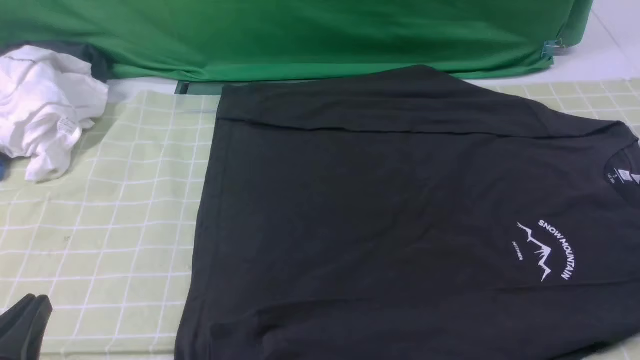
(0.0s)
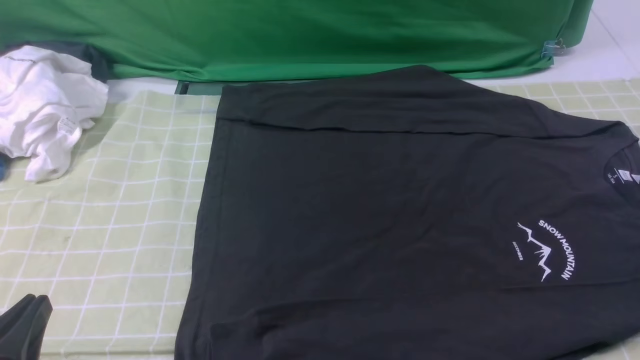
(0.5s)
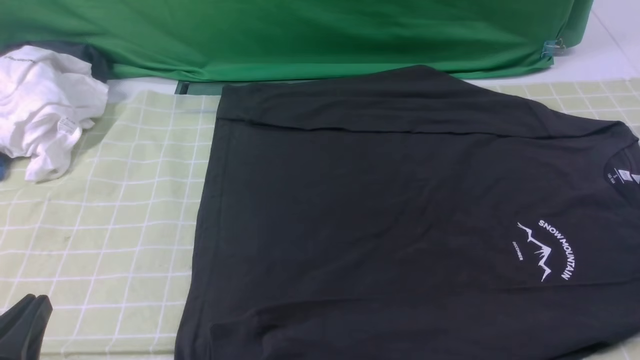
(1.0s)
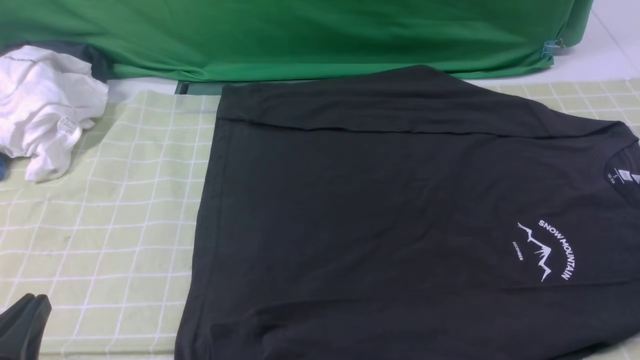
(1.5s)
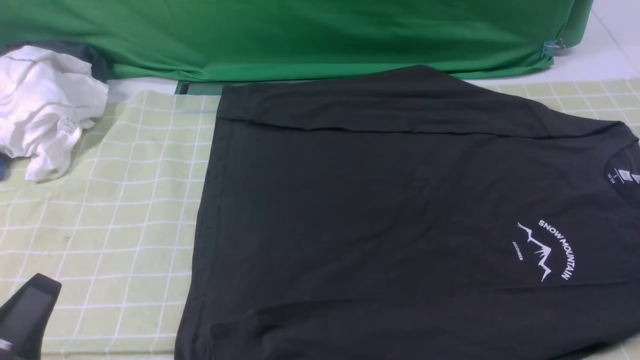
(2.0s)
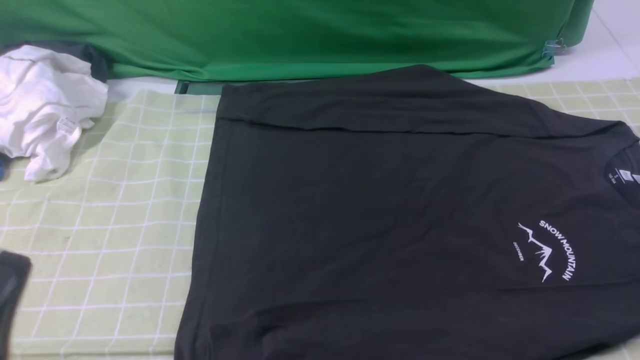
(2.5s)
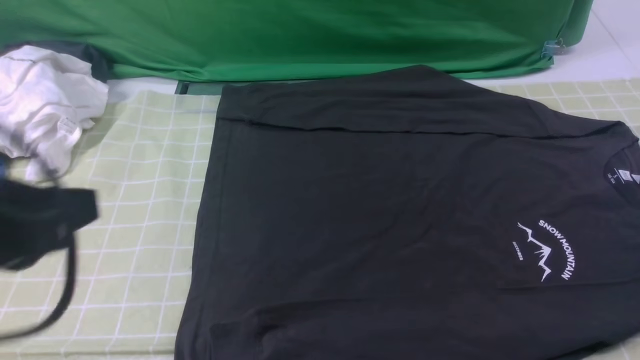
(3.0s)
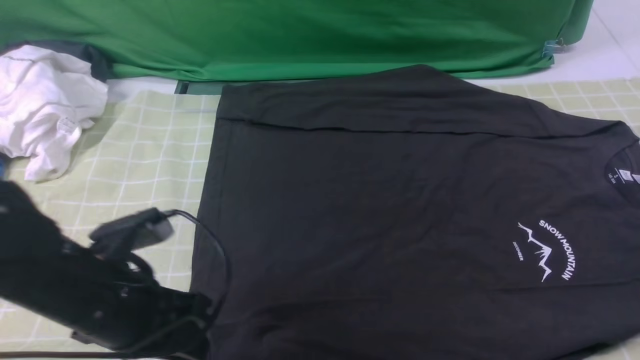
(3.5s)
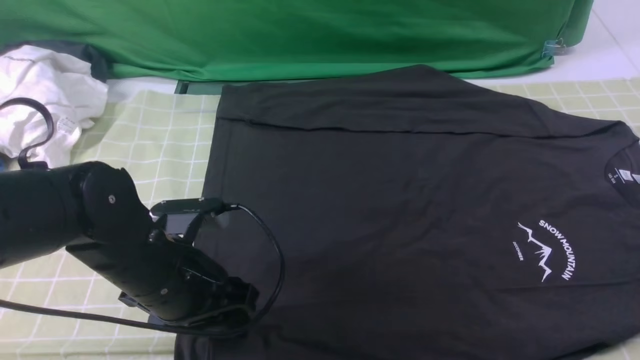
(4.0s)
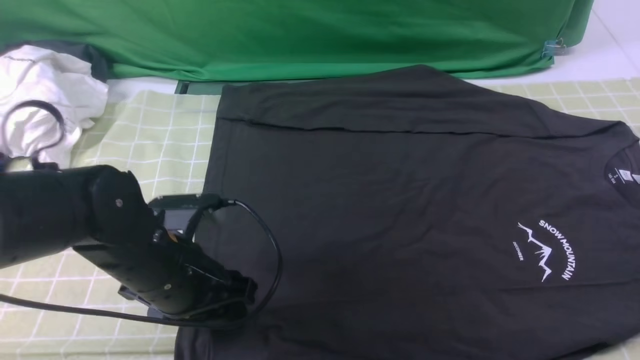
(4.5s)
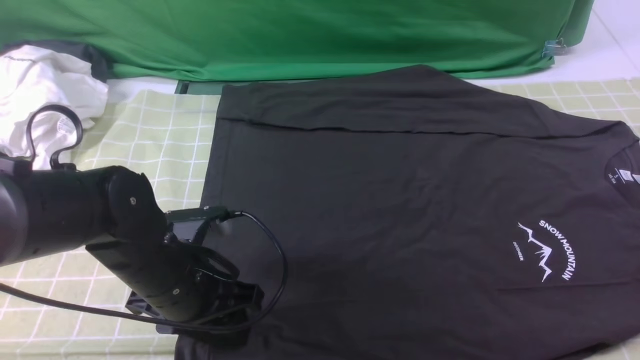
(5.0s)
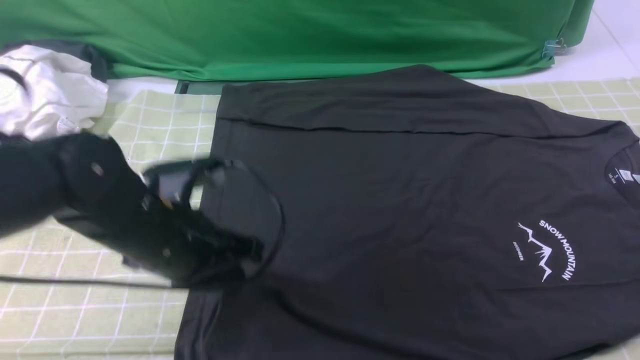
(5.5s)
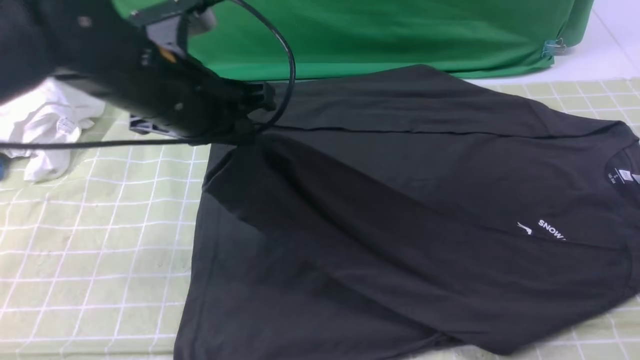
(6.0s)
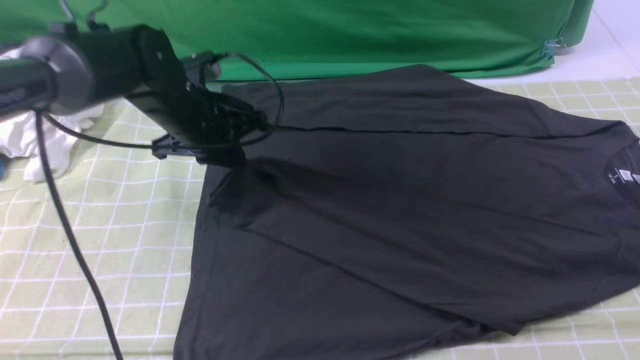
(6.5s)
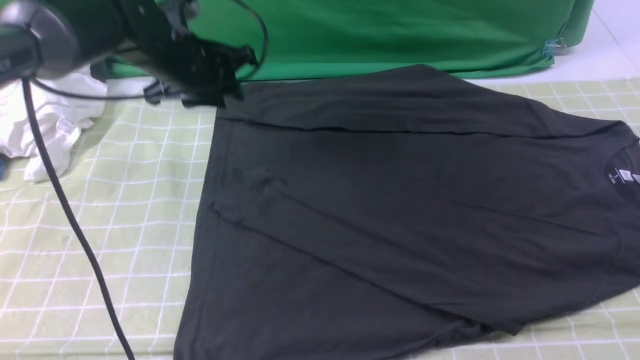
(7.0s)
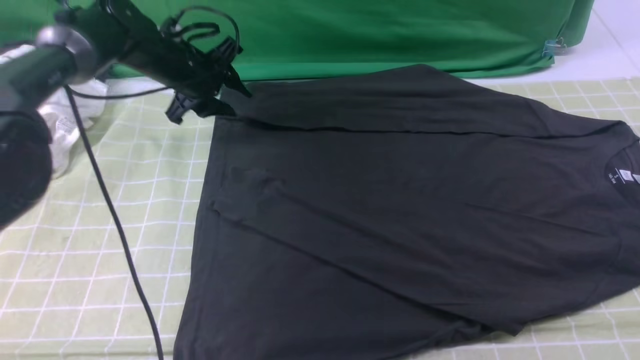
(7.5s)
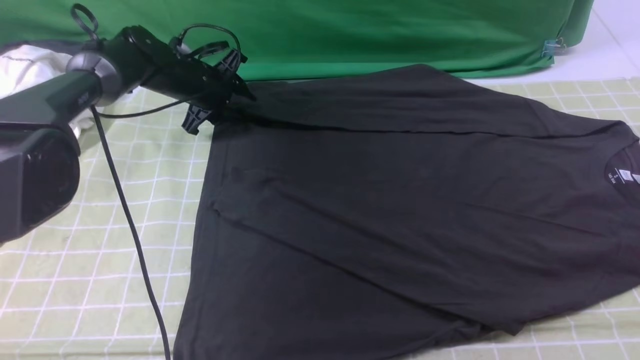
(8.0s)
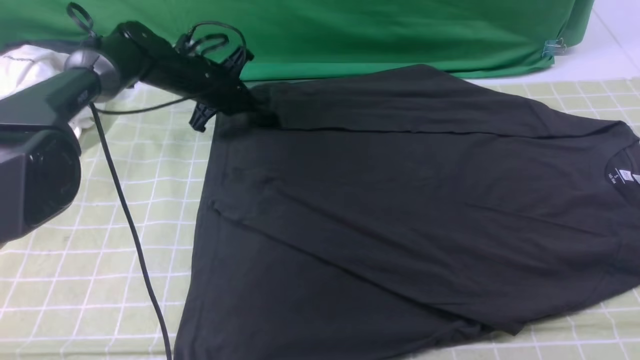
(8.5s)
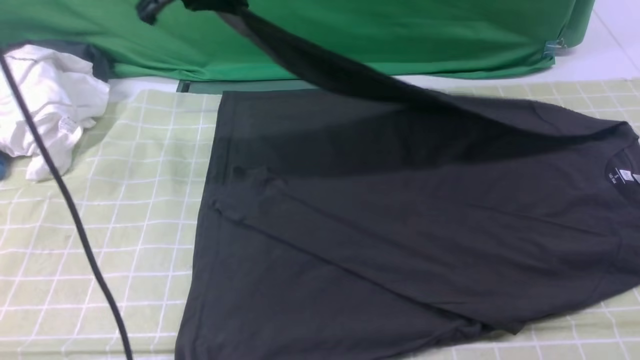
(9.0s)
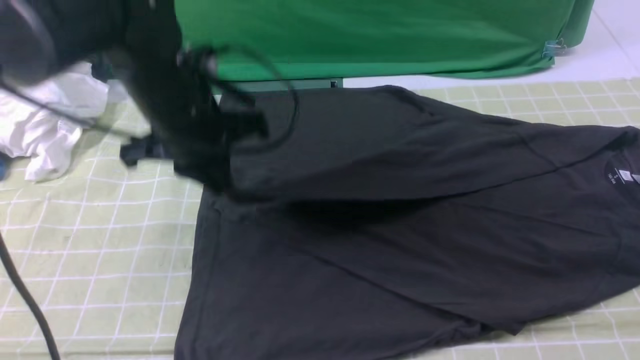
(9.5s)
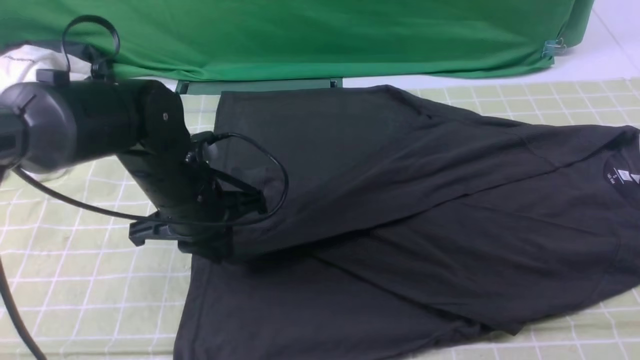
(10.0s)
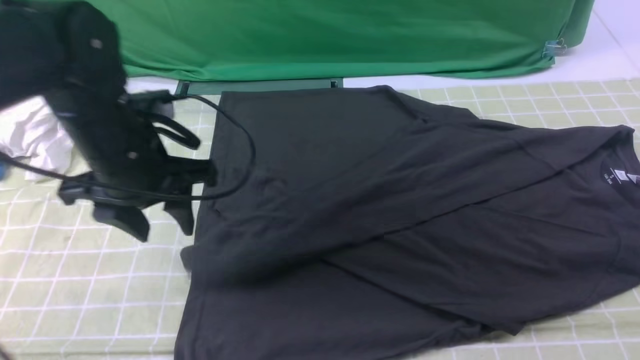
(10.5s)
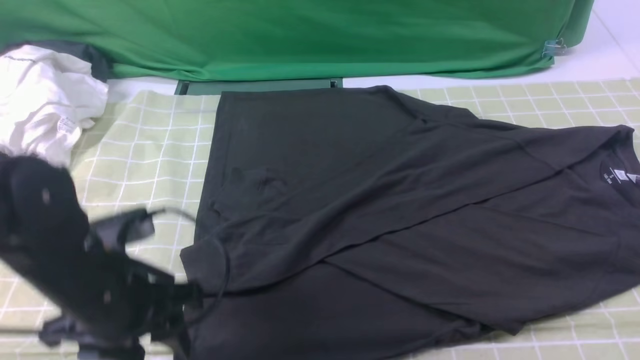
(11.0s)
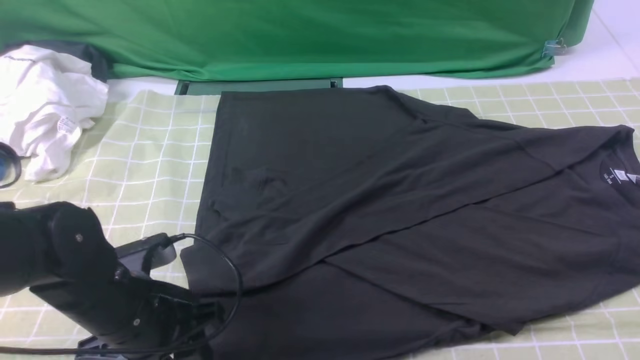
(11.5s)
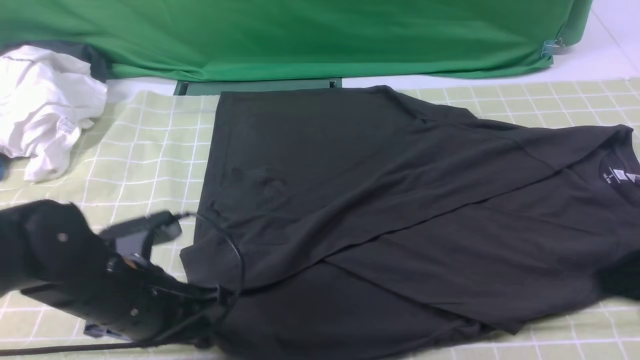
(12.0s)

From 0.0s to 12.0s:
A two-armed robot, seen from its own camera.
Step, from 0.0s to 5.0s: use the left arm to clamp the cuff closest to it.
Step, from 5.5s to 6.5s: use the left arm to drag and place the cuff at the centered position on the left edge of the fabric.
Step, from 7.0s to 8.0s: use the left arm to clamp the cuff farthest from it.
Step, from 8.5s to 10.5s: use the left arm to drag and drop the cuff onto the cuff closest to the left arm.
From 2.0s to 4.0s: The right gripper shifts approximately 15 cm upward and forward, and closes up, while the left gripper heads forward and to the right, covering about 20 cm, and opens.
From 4.0s to 6.0s: The left gripper heads upward and forward, covering roughly 15 cm, and closes.
From 6.0s to 8.0s: The left gripper shifts about 25 cm forward and downward, and opens up.
From 8.0s to 10.0s: The left gripper shifts about 25 cm backward, and closes its fingers.
From 10.0s to 12.0s: The left gripper goes about 10 cm backward, and opens and closes again. Meanwhile the right gripper shifts by some 5 cm.

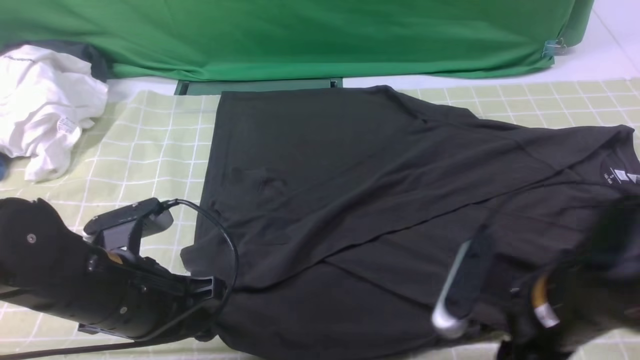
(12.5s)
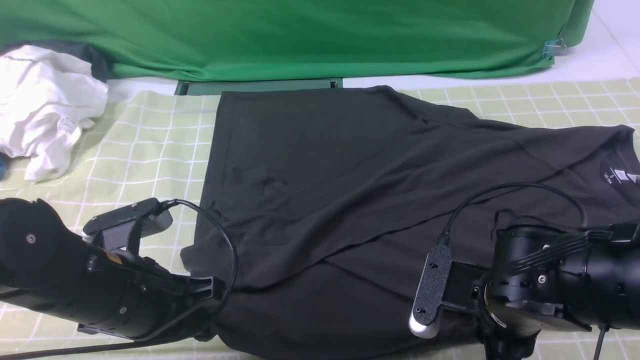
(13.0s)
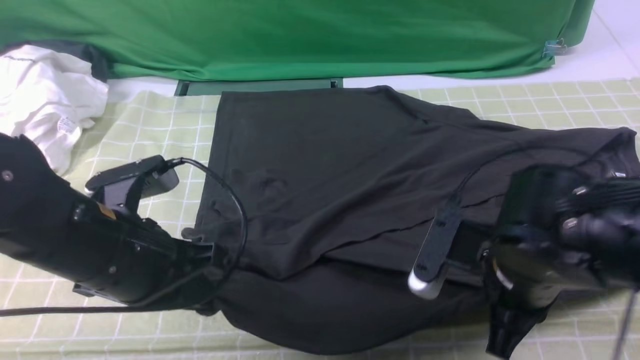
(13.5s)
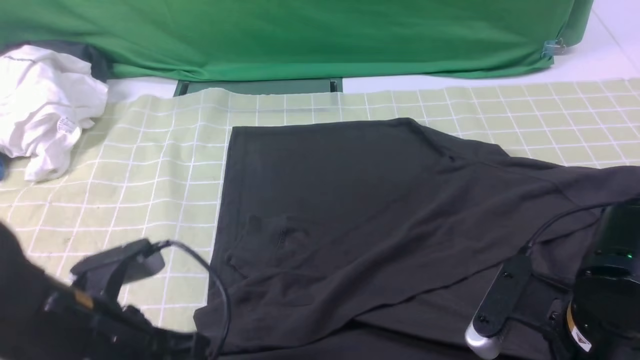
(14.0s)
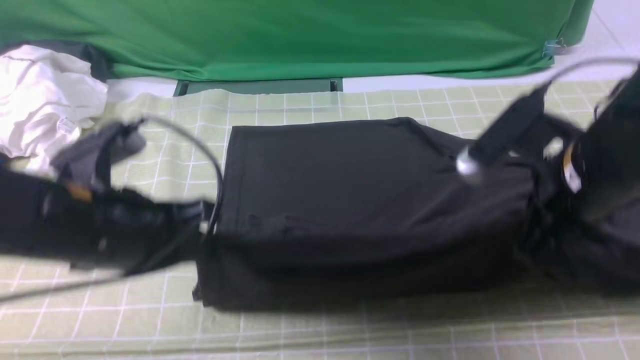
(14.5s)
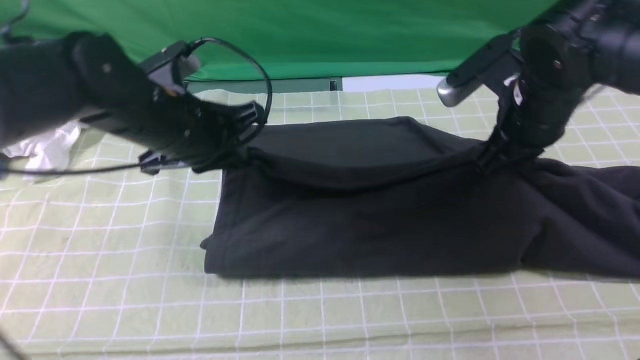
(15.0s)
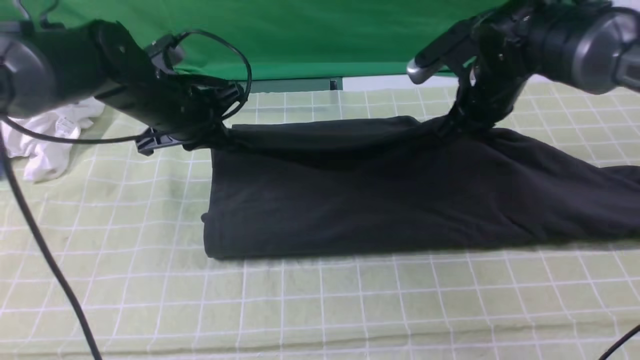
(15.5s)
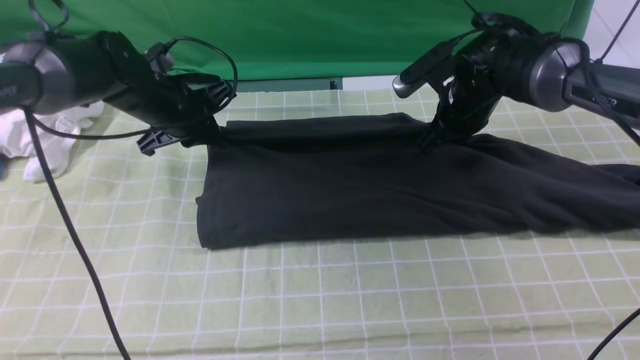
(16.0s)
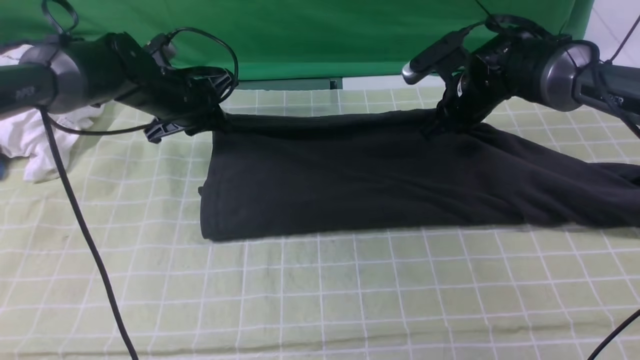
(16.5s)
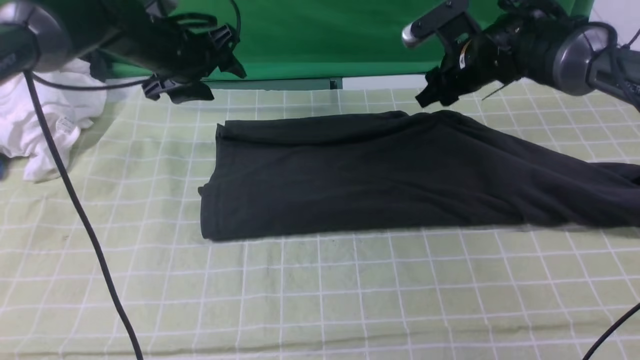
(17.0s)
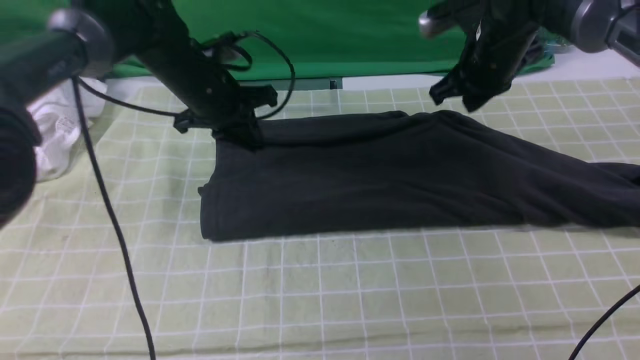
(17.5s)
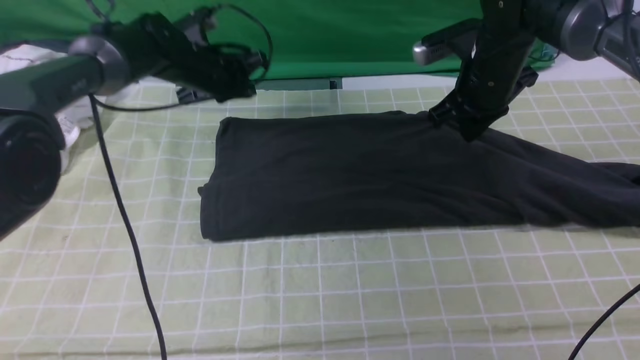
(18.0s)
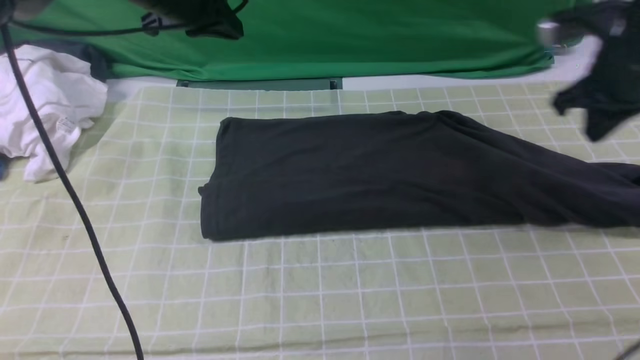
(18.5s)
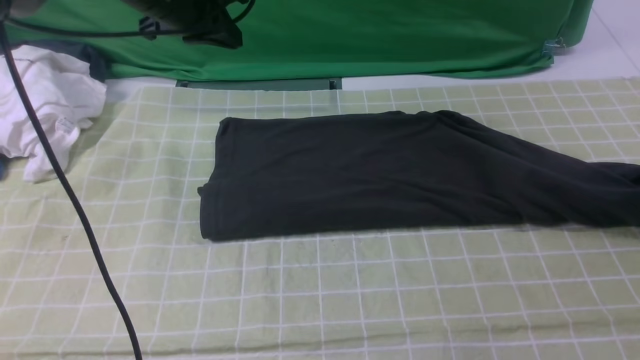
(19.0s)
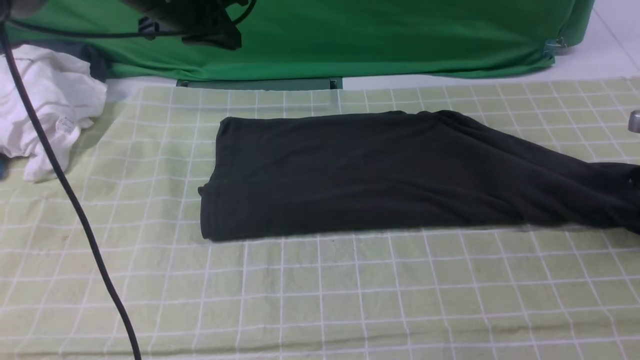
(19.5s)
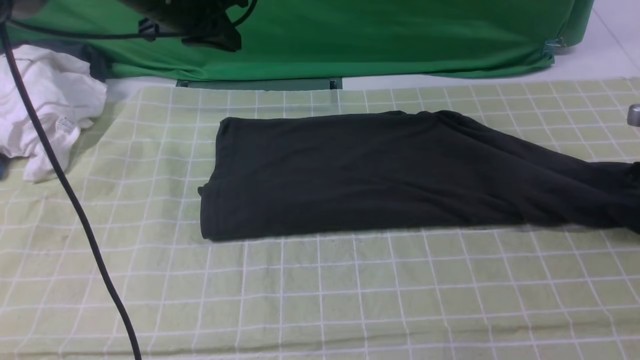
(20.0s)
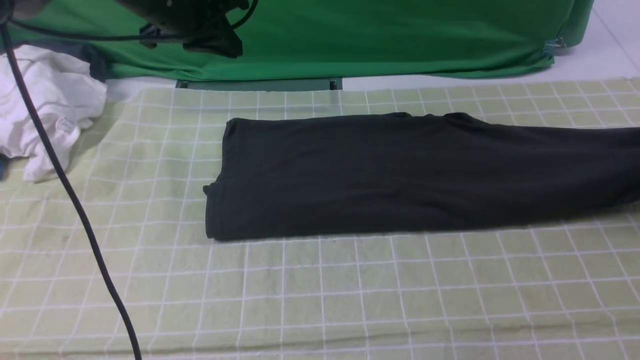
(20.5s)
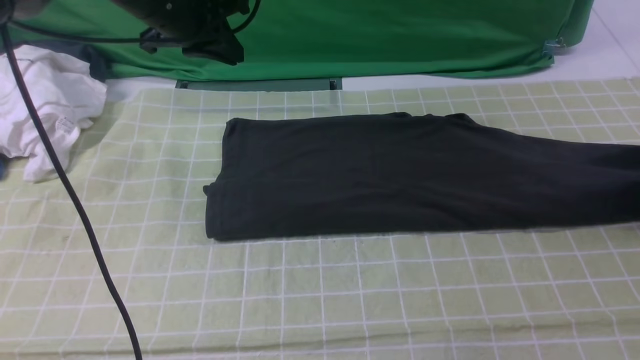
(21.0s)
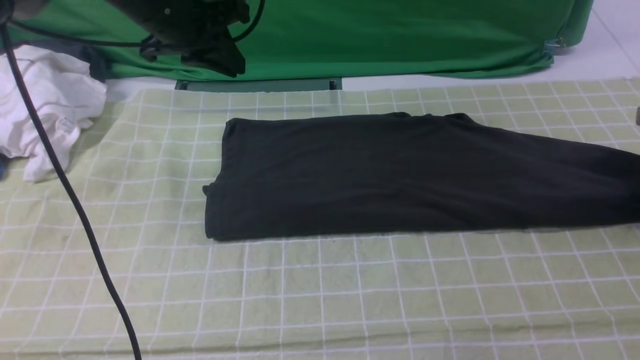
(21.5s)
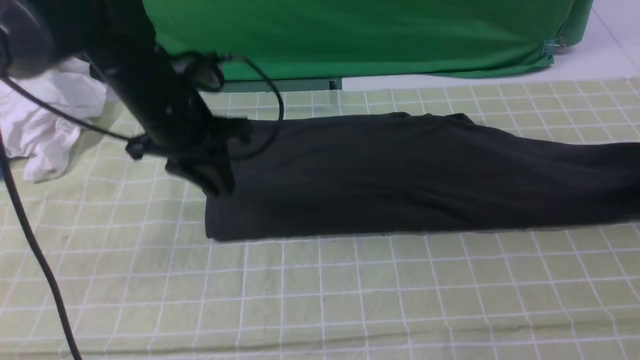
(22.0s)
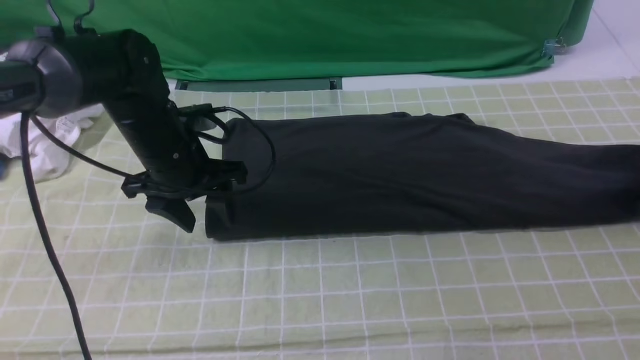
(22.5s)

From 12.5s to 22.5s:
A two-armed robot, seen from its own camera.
Step, from 13.5s to 16.5s: use both arms to drag the lower edge of the fabric forward and fold it over the upper edge.
Step, from 17.0s to 21.0s: use the right arm to clamp the right edge of the fabric.
From 12.5s to 14.5s: The right gripper moves upward and forward, some 10 cm, and closes, while the left gripper moves upward, about 5 cm.
From 14.5s to 16.5s: The left gripper heads forward, covering about 25 cm; the right gripper heads forward and downward, covering roughly 25 cm, and opens up.
From 16.5s to 18.5s: The right gripper travels to the right, upward and backward by some 20 cm, and closes its fingers. The left gripper moves upward, about 10 cm, and closes.
From 18.5s to 20.5s: The right gripper heads to the right, covering some 15 cm, and opens, then closes again.
From 20.5s to 22.5s: The left gripper travels downward and backward by some 15 cm, and opens up; the right gripper ends up roughly 5 cm from where it was, and opens, then closes once more.
